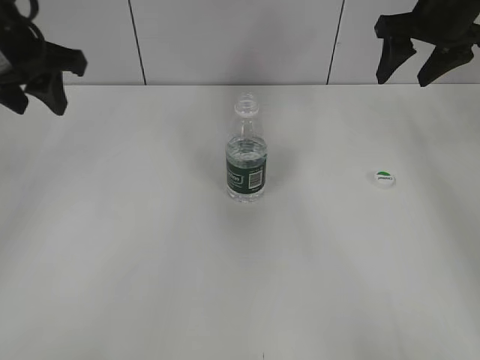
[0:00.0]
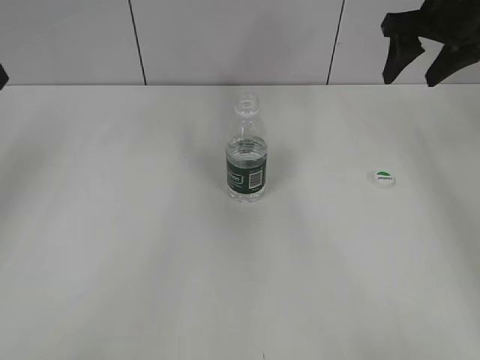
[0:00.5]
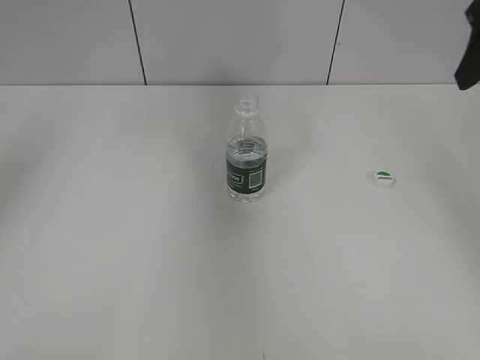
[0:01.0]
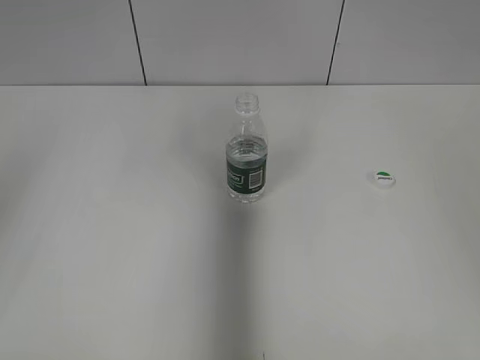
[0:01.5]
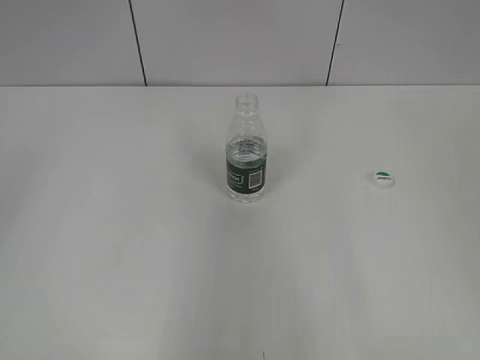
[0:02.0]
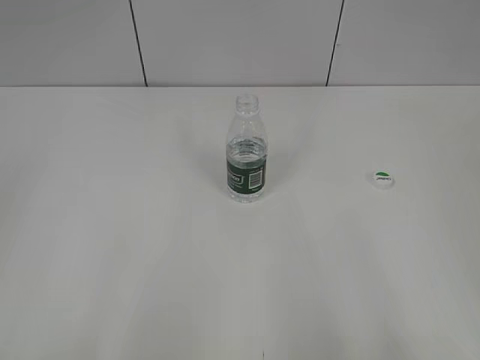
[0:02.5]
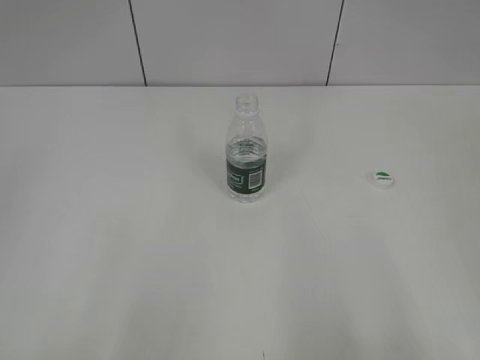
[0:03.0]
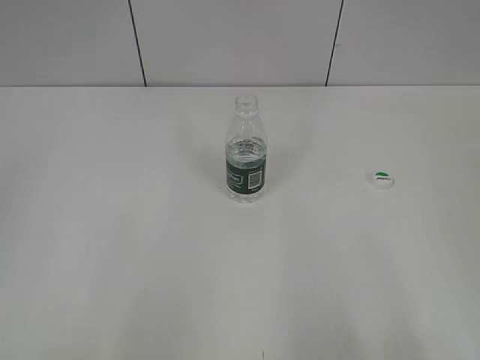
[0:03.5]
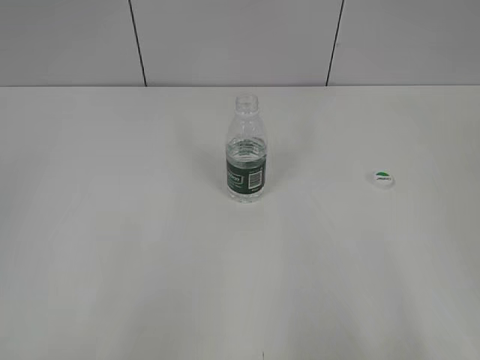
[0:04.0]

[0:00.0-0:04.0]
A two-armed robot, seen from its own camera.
0:00.0 to 0:02.0: Both grippers move backward, roughly 35 cm.
0:02.0 to 0:04.0: The right gripper travels downward and backward by approximately 10 cm, while the left gripper is displaced backward and downward by approximately 10 cm.
